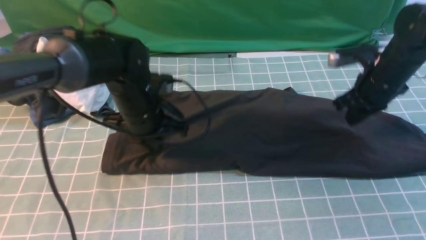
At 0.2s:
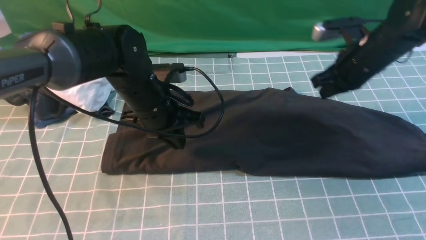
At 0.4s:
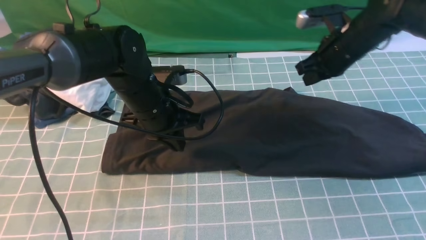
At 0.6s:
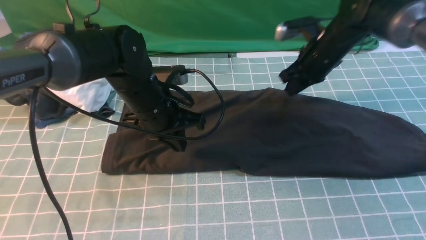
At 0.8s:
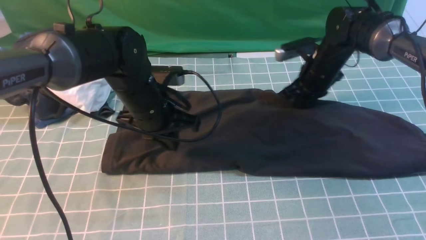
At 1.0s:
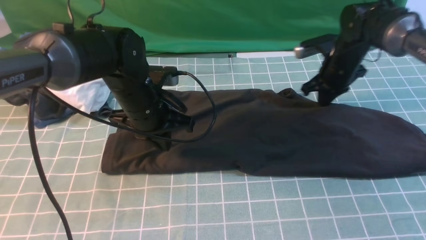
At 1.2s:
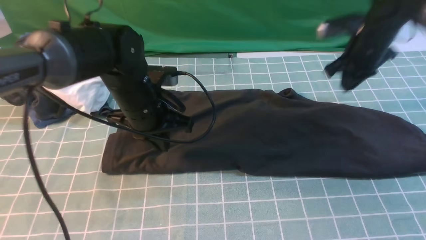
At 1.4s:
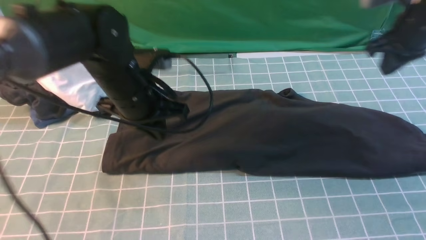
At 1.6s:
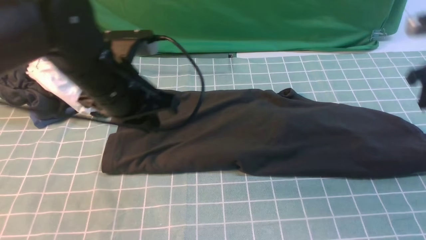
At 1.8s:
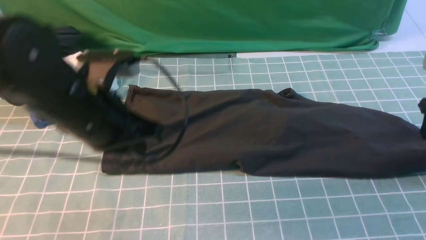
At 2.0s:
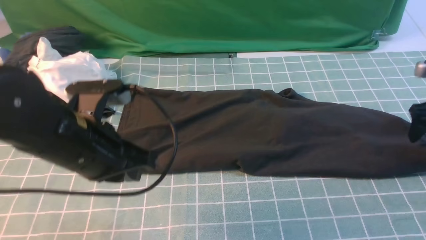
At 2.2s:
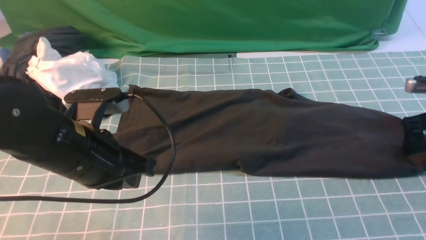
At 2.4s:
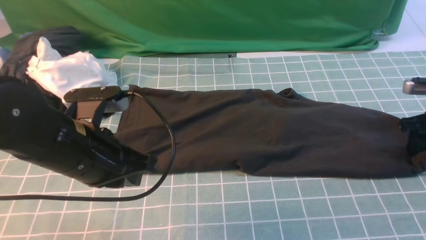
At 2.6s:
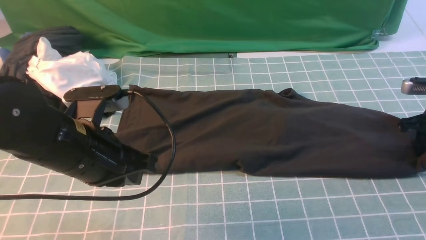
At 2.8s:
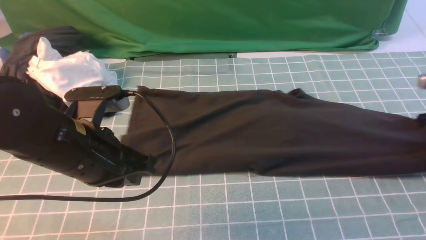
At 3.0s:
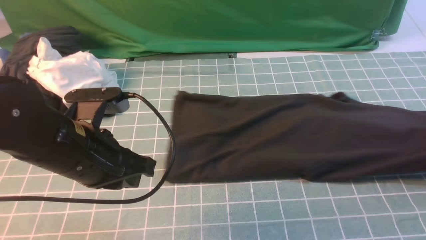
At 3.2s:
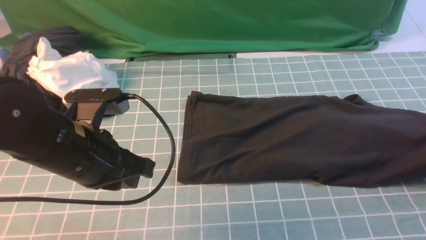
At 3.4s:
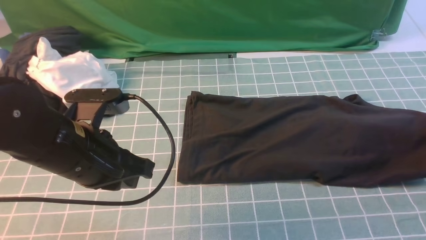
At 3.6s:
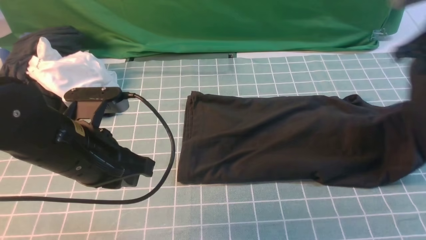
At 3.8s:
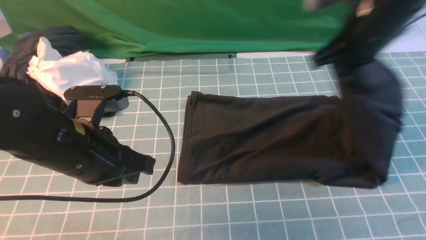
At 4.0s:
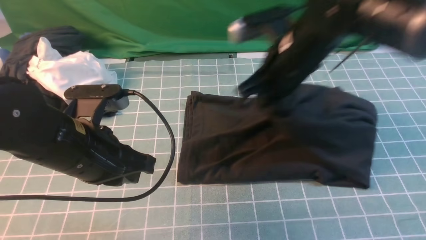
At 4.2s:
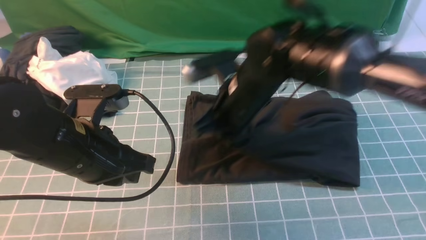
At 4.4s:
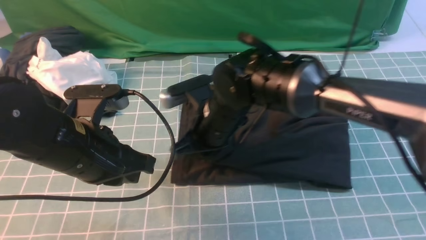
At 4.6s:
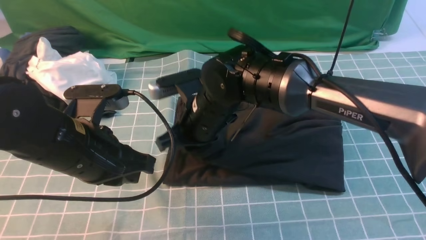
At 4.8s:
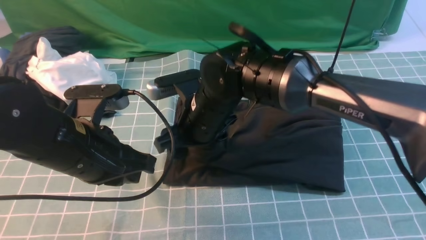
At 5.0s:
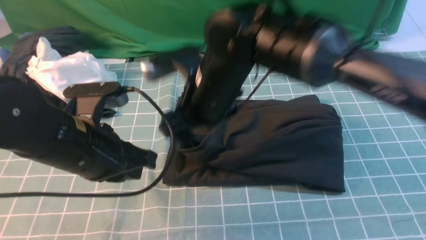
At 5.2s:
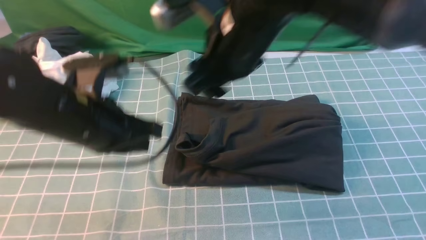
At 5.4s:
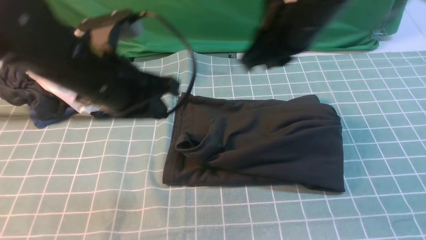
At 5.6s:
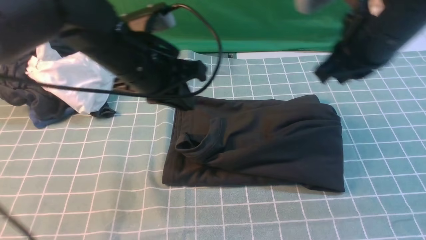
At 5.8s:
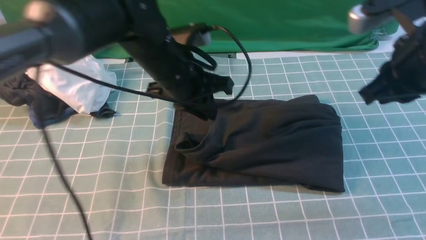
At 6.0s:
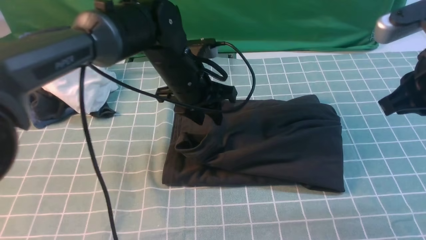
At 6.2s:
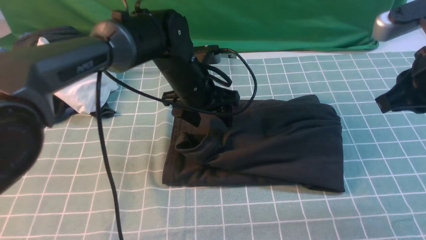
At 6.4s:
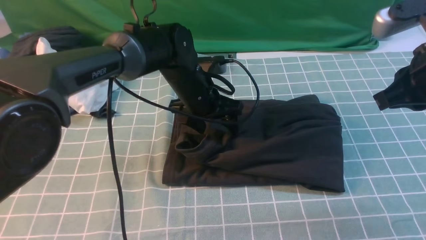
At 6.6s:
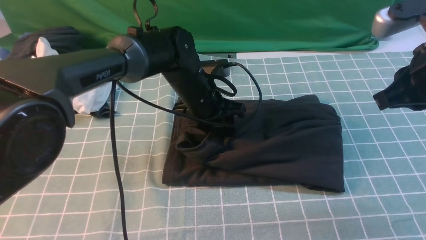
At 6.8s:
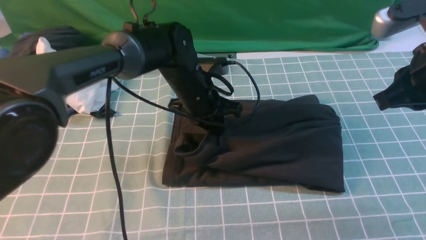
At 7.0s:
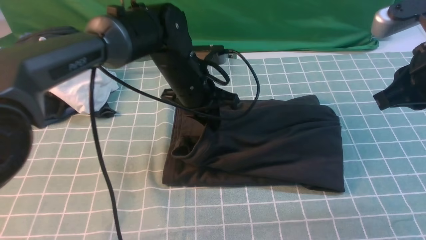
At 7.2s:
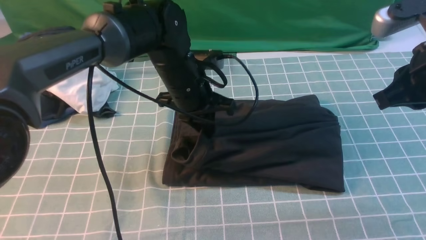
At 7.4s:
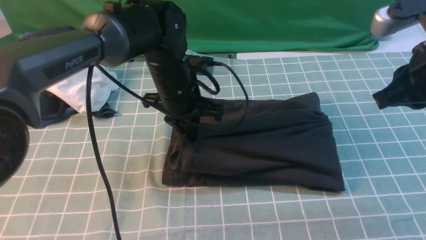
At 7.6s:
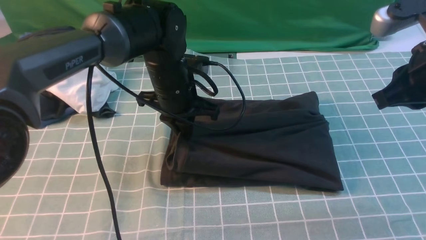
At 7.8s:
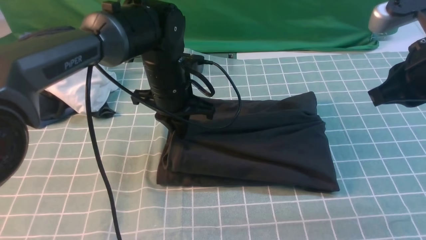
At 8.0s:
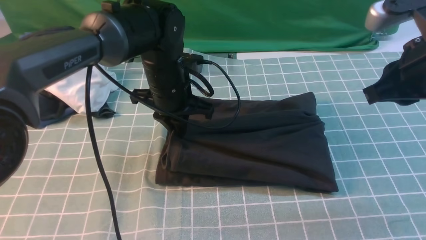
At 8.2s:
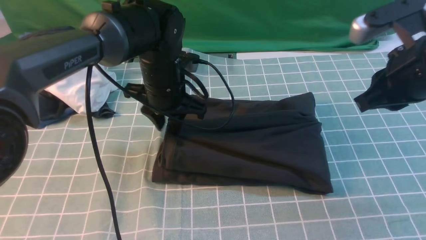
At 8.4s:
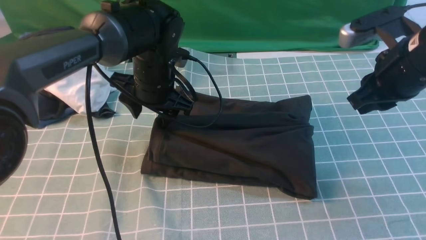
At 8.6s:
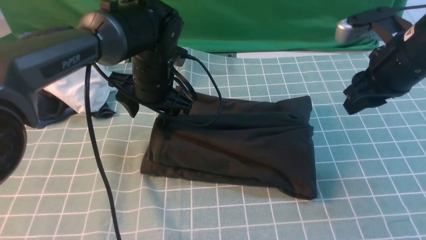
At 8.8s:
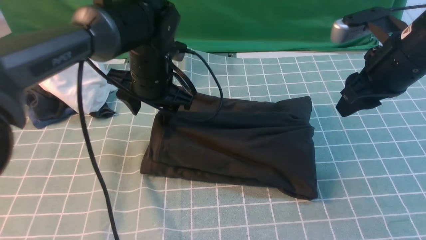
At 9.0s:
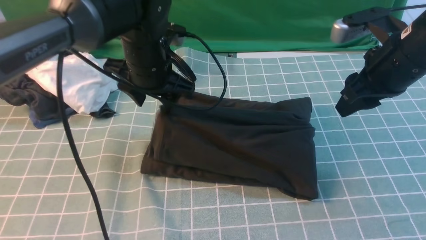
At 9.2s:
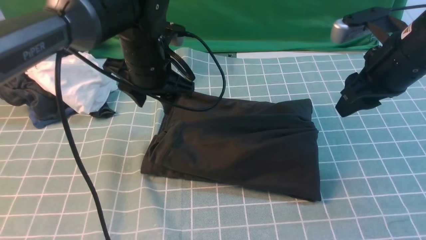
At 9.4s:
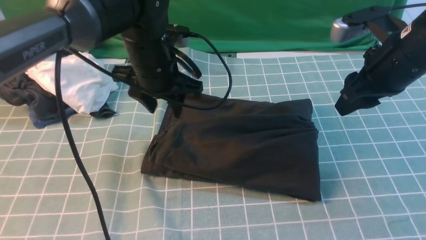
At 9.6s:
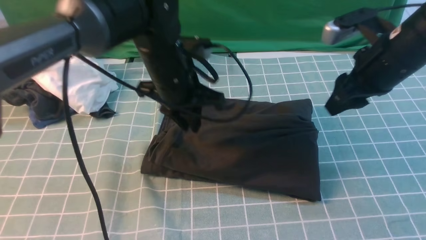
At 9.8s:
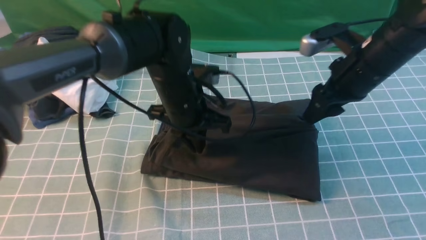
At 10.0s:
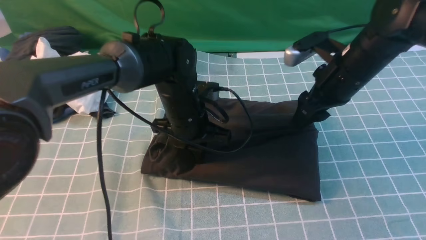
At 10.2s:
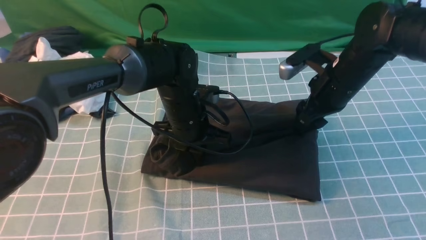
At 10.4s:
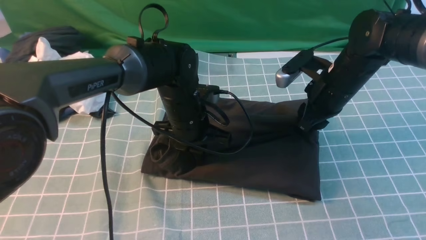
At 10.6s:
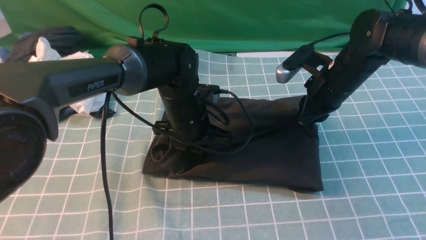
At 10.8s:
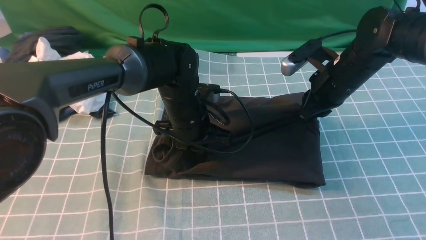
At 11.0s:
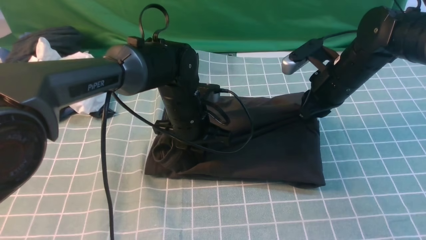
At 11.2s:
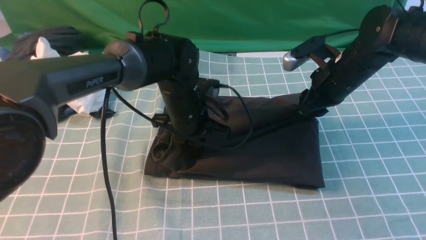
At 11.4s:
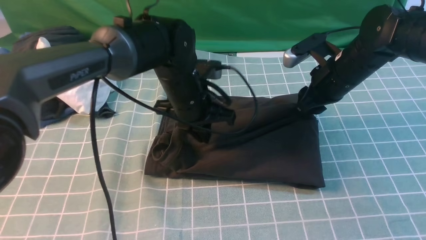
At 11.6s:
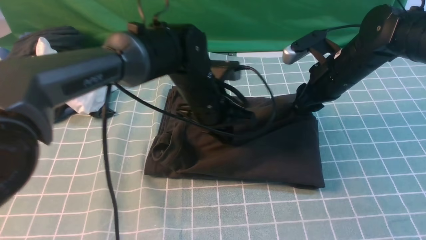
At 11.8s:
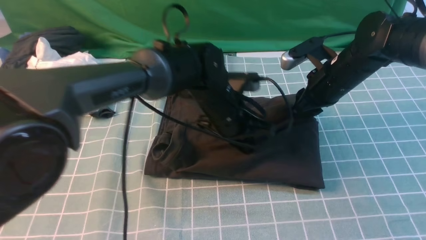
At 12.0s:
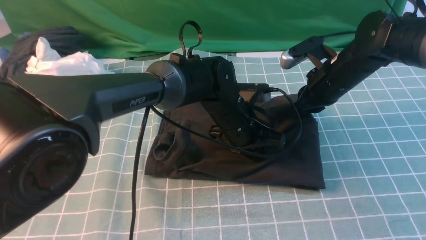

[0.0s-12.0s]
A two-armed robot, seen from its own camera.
Step, 0.0s to 2.8s: use the right arm to clamp the right edge of the fabric.
Step, 3.0s to 5.2s: use the right arm to drag the right edge of the fabric to the left and folds it over the left edge.
0.0s to 1.6s: The right gripper shifts roughly 10 cm to the right, and opens its fingers, while the left gripper moves upward and backward, some 10 cm.
1.6s to 3.0s: The left gripper moves backward, roughly 5 cm. Meanwhile the right gripper moves to the right, roughly 10 cm, travels downward and back again, roughly 10 cm each way, and closes.
3.0s to 4.4s: The right gripper heads to the left, covering roughly 50 cm.
4.4s to 6.0s: The right gripper shifts some 30 cm to the right and upward, and opens, then closes once more. Meanwhile the left gripper heads forward and to the right, covering roughly 20 cm, and opens its fingers.
6.0s to 7.6s: The left gripper closes.
7.6s to 9.0s: The left gripper opens up; the right gripper heads forward, covering approximately 5 cm, and opens up.
9.0s to 10.4s: The left gripper heads downward, covering some 10 cm, and closes its fingers; the right gripper shifts roughly 10 cm downward and forward.
10.4s to 12.0s: The left gripper heads to the right, covering approximately 10 cm.

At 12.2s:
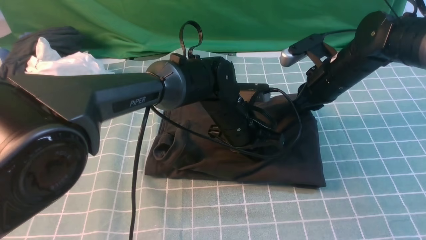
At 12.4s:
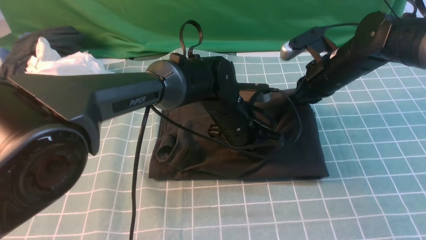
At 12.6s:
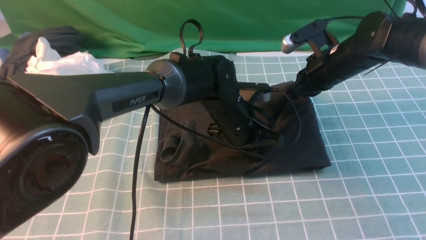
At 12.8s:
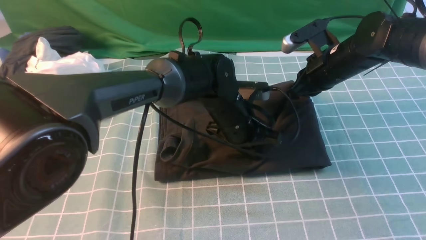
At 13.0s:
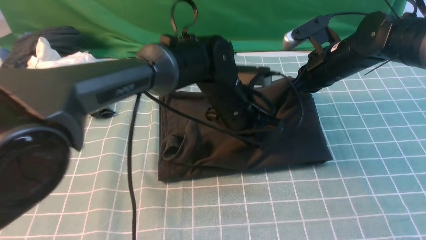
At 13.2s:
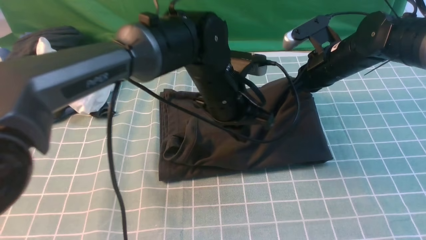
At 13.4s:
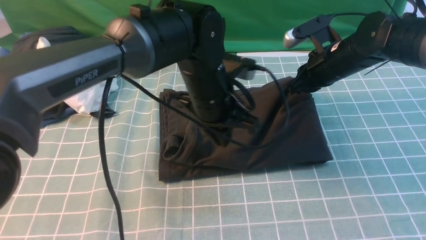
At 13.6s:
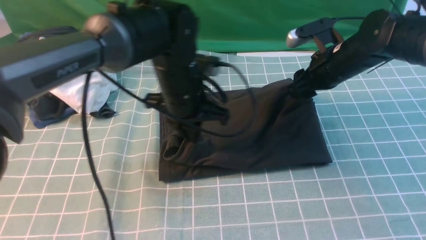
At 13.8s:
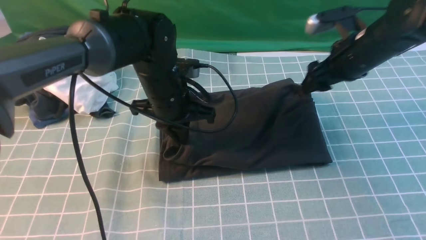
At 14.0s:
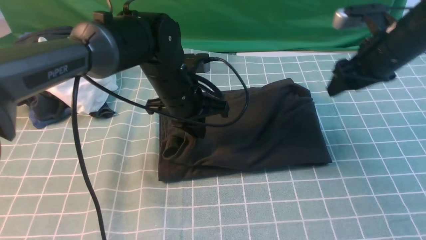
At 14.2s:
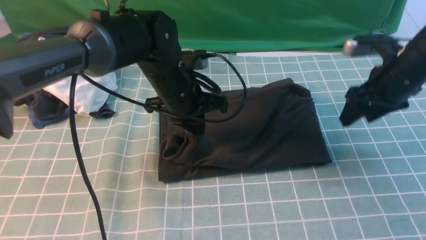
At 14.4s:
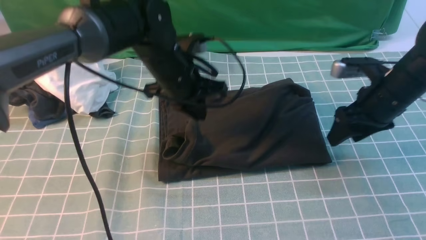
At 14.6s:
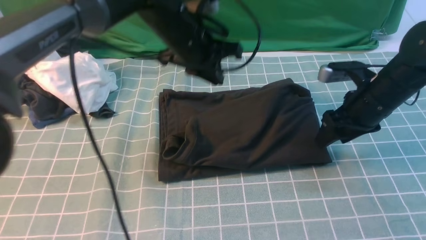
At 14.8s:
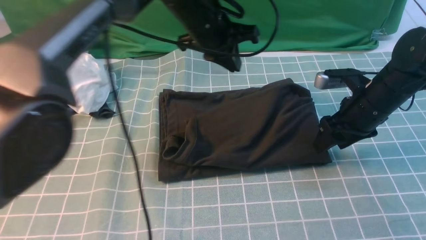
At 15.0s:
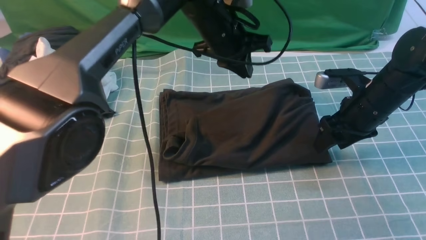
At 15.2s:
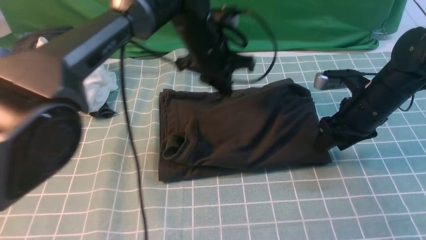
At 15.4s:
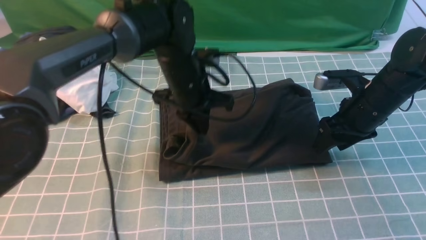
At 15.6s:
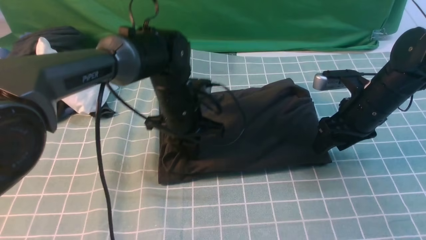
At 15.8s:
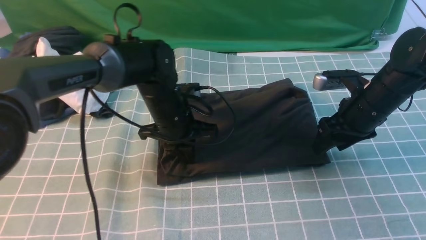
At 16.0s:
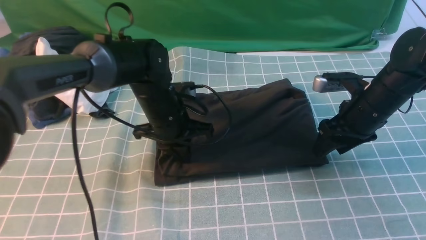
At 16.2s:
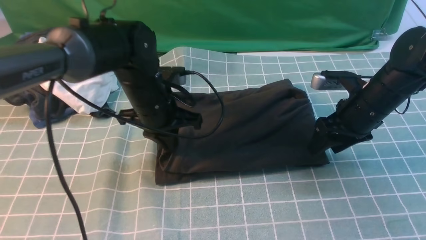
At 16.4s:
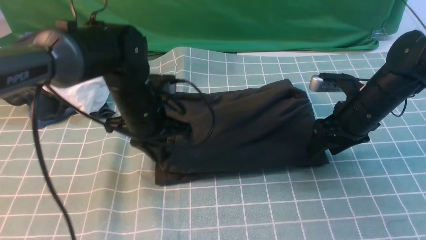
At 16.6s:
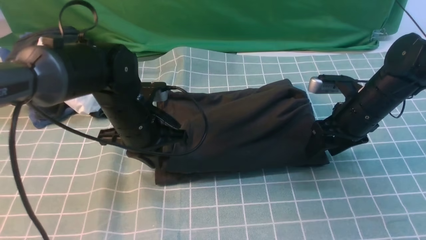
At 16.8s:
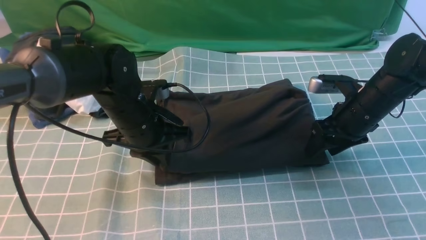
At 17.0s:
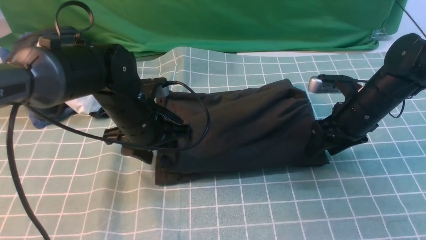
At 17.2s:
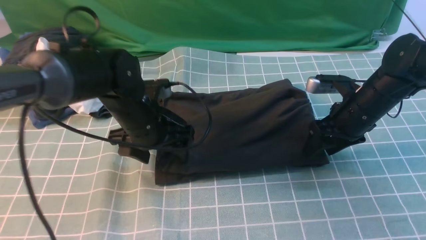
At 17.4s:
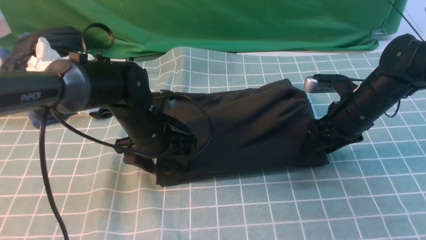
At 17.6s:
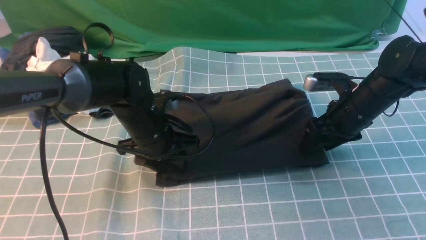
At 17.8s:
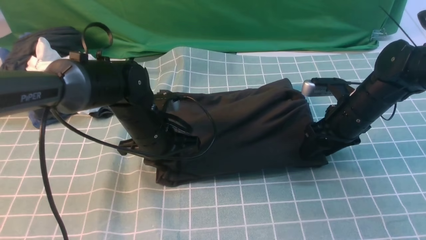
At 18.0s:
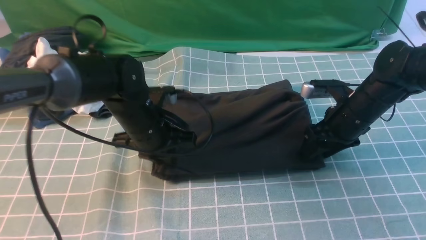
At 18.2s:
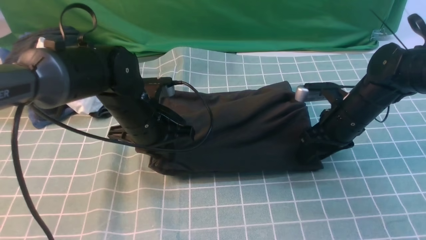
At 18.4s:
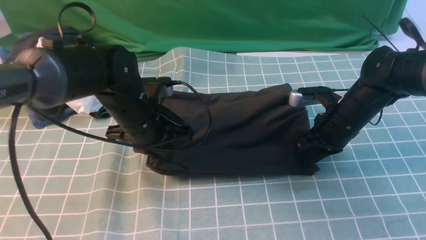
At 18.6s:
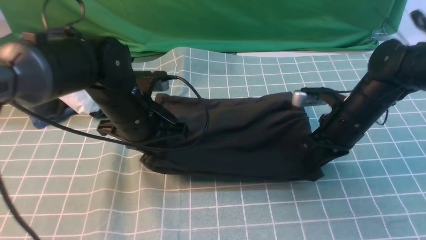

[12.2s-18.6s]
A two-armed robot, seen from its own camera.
12.2s to 13.8s: The right gripper shifts by roughly 5 cm, and opens up, while the left gripper moves to the left and upward, approximately 10 cm.
13.8s to 15.4s: The left gripper reaches some 5 cm upward, then returns. The right gripper shifts some 5 cm downward.
15.4s to 17.0s: The left gripper goes about 10 cm backward and to the left, and opens its fingers.
17.0s to 18.6s: The right gripper closes its fingers; the left gripper closes.
